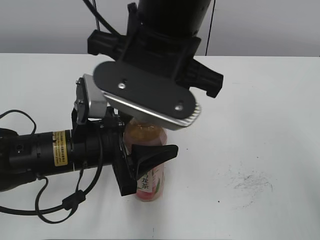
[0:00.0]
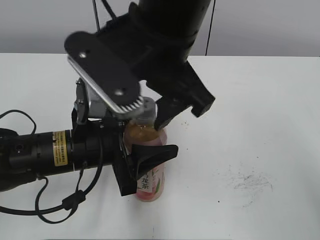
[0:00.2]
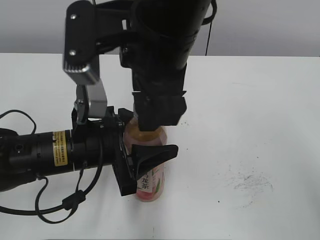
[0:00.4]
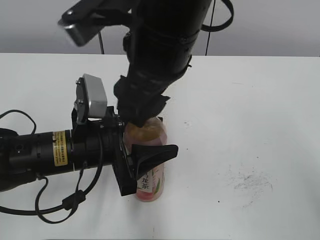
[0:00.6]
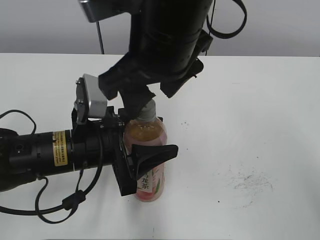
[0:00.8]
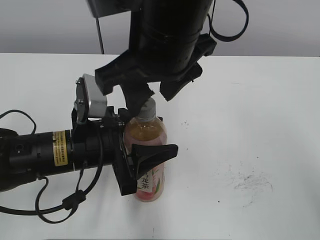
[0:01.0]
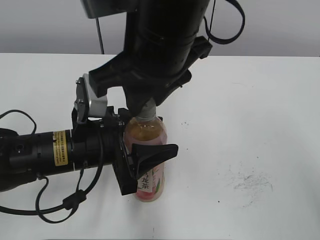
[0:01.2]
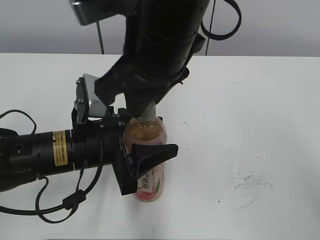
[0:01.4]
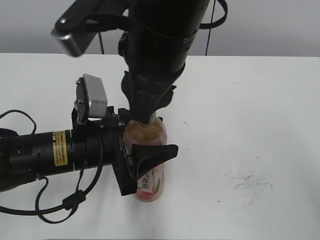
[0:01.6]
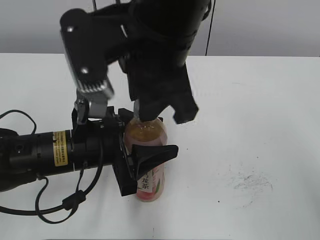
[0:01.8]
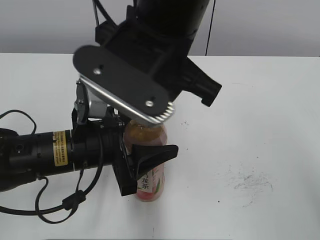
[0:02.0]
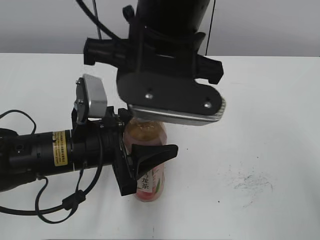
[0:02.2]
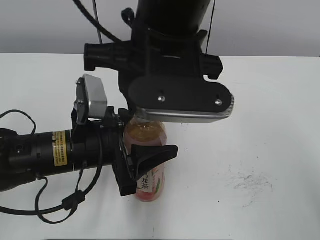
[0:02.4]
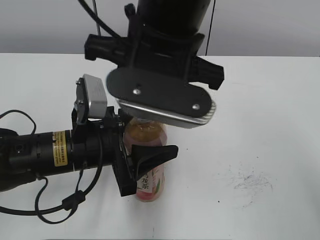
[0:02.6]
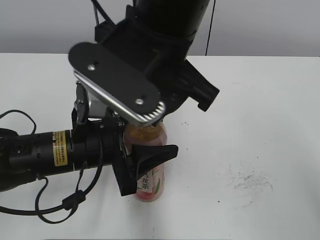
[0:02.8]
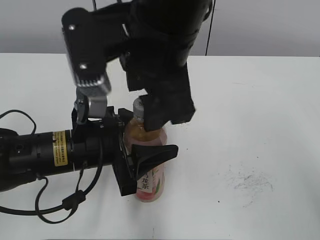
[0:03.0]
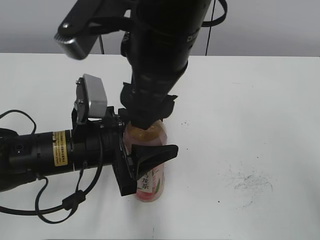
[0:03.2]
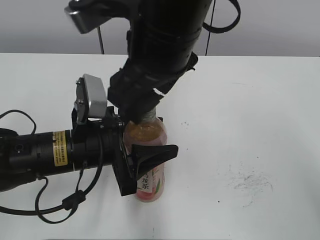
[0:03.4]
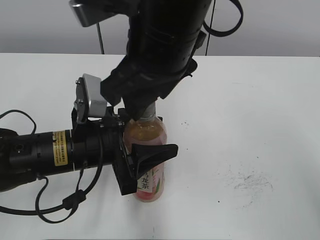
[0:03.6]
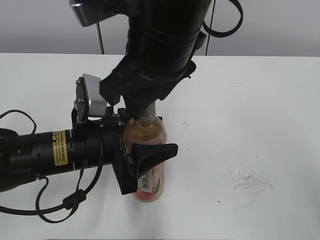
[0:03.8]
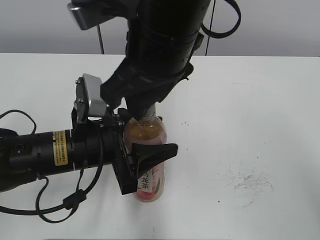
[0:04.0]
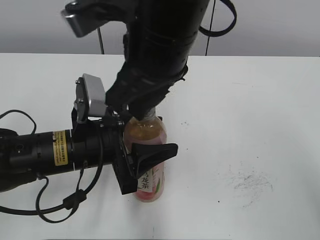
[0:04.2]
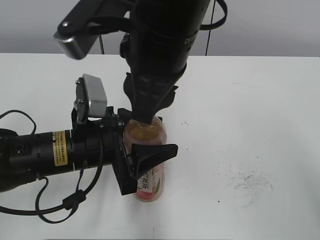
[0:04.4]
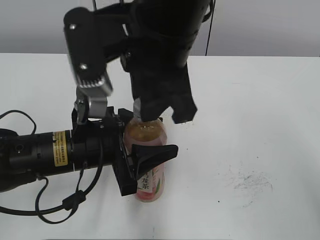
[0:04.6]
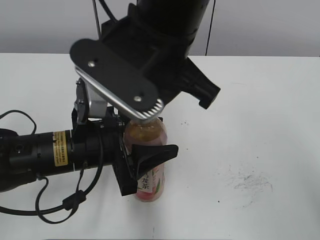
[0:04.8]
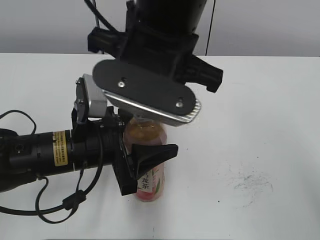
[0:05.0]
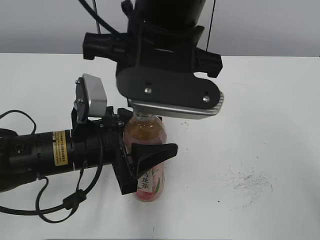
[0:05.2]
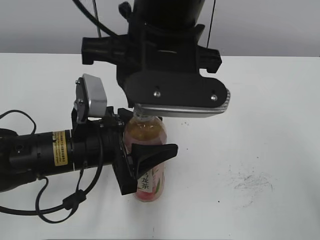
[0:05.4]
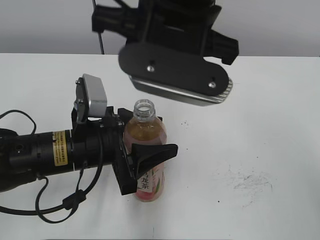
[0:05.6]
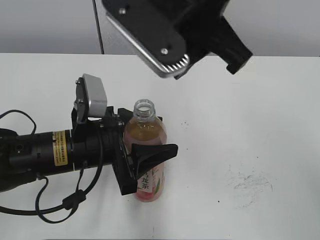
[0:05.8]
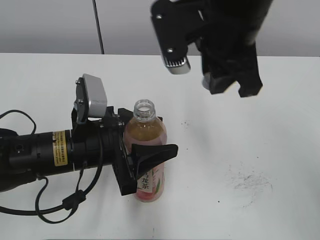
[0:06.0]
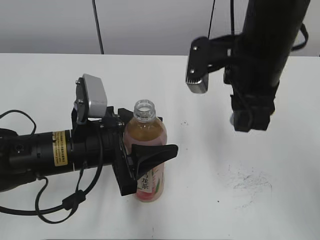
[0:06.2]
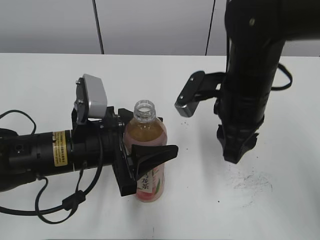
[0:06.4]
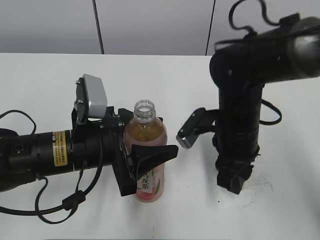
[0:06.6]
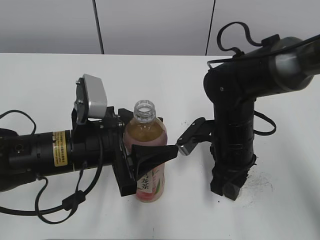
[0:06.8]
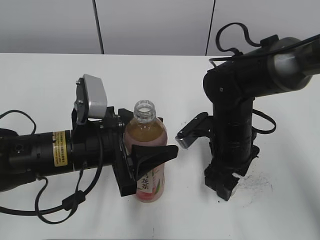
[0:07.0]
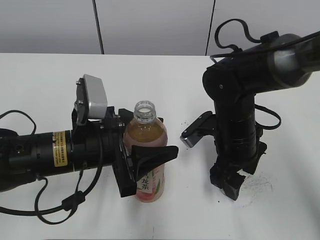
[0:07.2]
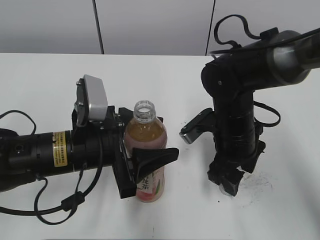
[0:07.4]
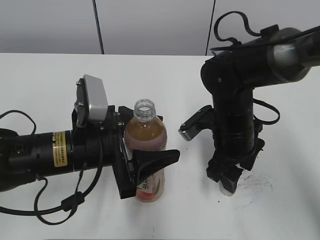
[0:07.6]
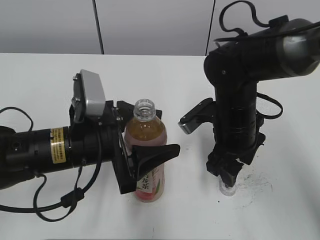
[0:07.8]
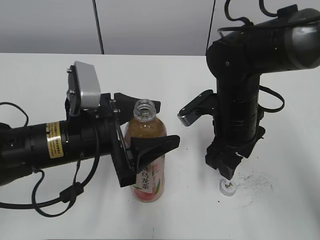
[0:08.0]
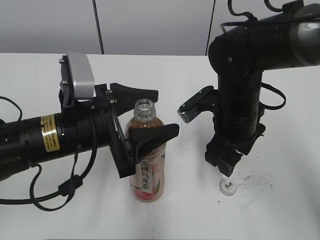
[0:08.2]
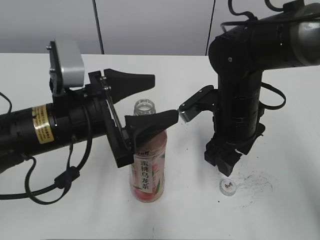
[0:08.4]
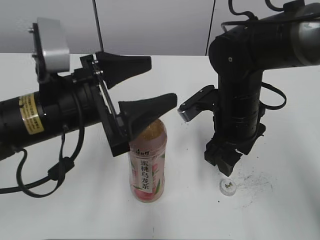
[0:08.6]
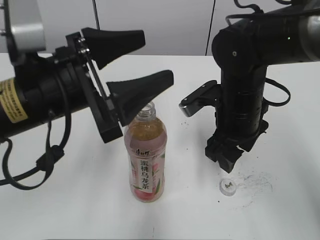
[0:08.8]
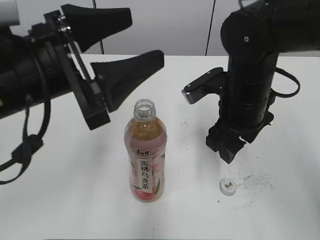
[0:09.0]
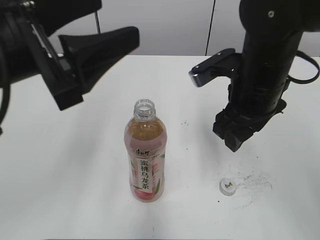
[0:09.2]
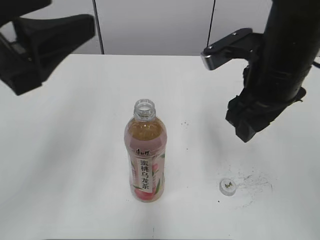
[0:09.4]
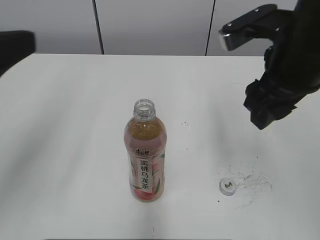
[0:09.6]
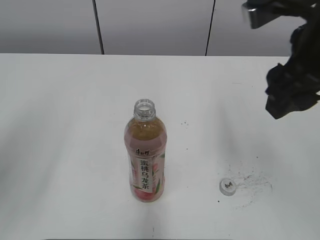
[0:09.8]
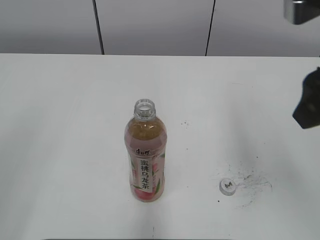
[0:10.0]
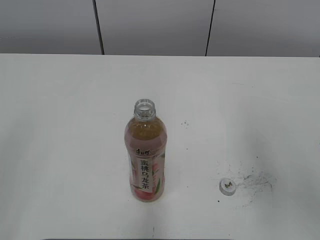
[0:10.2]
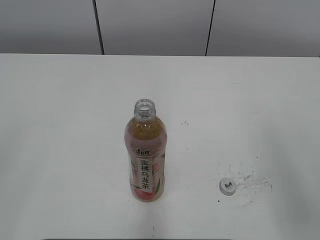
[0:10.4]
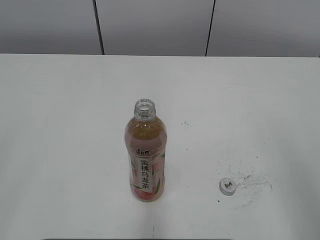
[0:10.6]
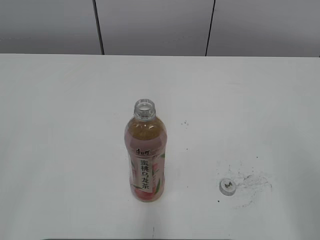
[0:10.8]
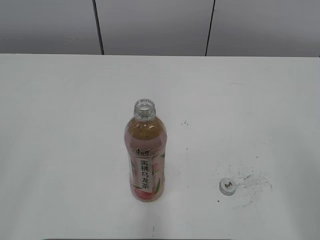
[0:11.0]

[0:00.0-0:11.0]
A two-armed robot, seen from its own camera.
Step, 0:05.6 to 0:06.8: Place the bottle cap on the right.
Step, 0:07.0 to 0:07.8: Place the Peach Oolong Tea with the left hand.
0:00.0 to 0:01.6: The right gripper opens and closes again.
0:01.6 to 0:03.2: The right gripper opens its fingers.
0:03.2 to 0:04.8: The right gripper closes up.
0:04.8 to 0:06.2: The right gripper moves to the right, roughly 10 cm.
0:06.2 to 0:07.8: The left gripper opens up. Meanwhile the right gripper is displaced downward by approximately 15 cm, and opens its fingers.
0:07.8 to 0:09.4: The right gripper heads upward, covering about 10 cm, while the left gripper goes approximately 20 cm upward and to the left.
0:09.4 to 0:11.0: The right gripper moves backward and to the right, roughly 30 cm. Meanwhile the left gripper travels backward and to the left by roughly 25 cm.

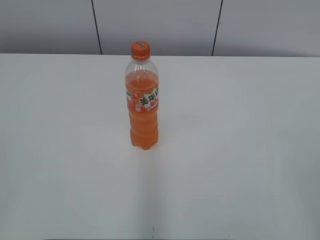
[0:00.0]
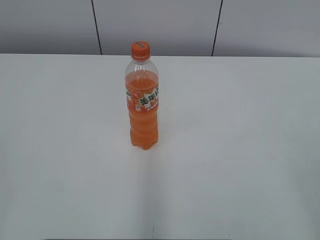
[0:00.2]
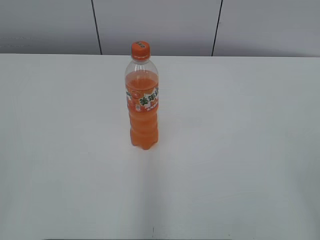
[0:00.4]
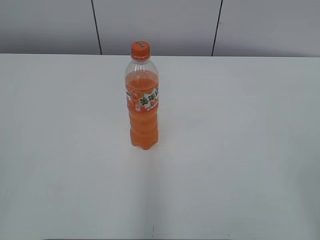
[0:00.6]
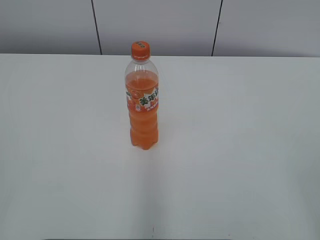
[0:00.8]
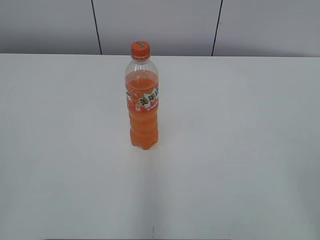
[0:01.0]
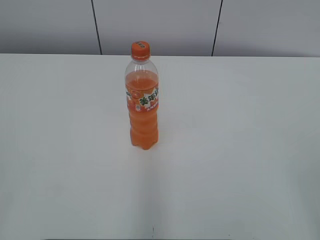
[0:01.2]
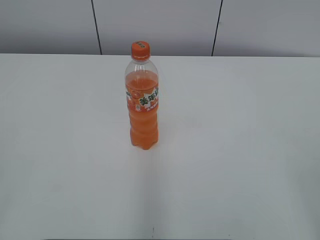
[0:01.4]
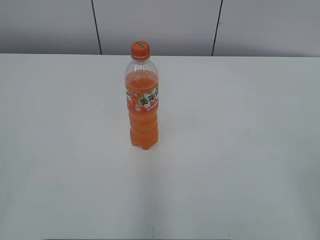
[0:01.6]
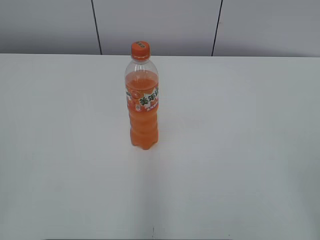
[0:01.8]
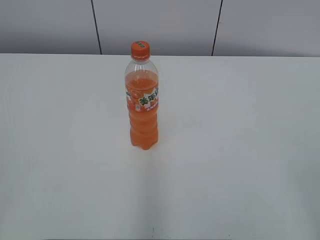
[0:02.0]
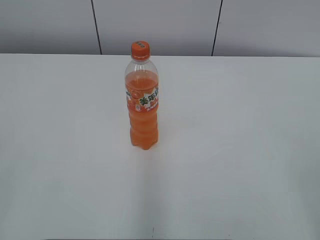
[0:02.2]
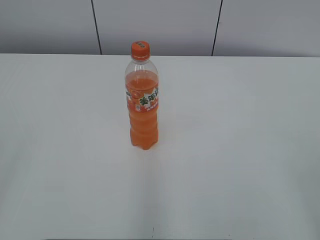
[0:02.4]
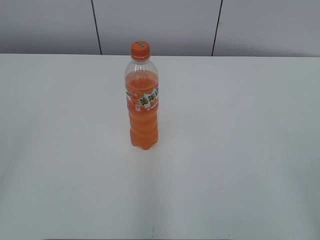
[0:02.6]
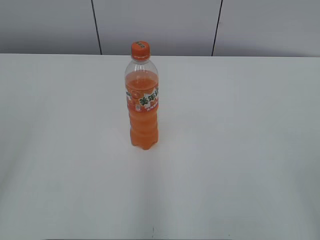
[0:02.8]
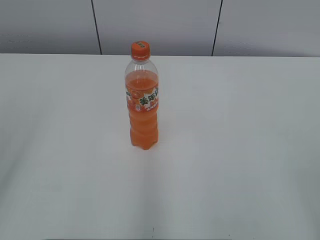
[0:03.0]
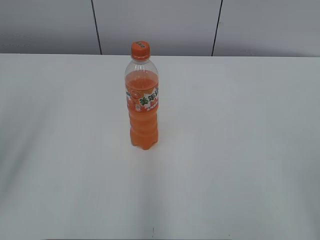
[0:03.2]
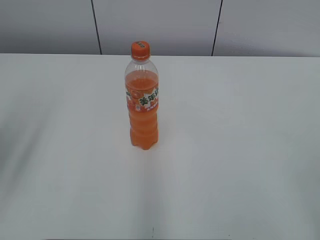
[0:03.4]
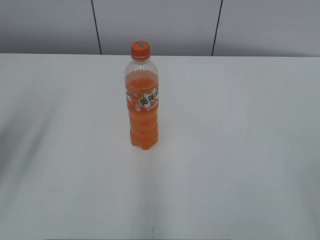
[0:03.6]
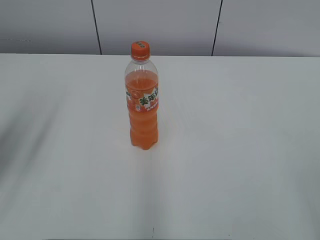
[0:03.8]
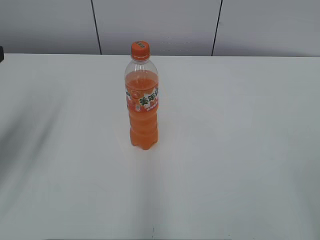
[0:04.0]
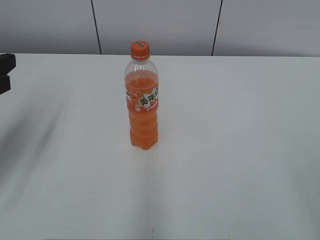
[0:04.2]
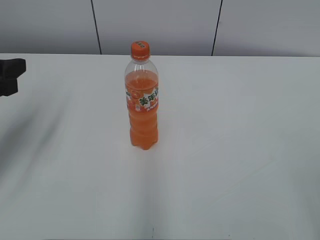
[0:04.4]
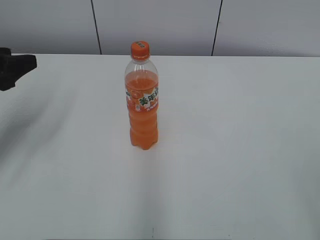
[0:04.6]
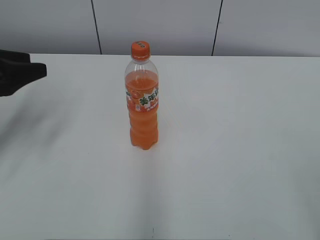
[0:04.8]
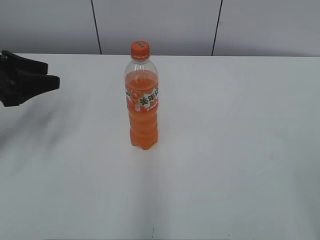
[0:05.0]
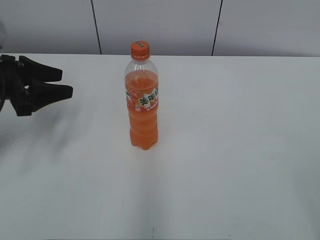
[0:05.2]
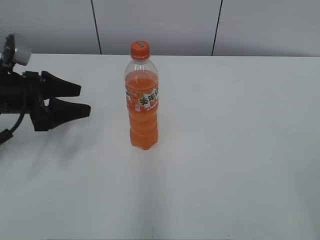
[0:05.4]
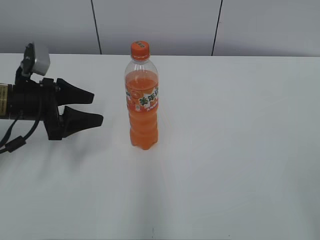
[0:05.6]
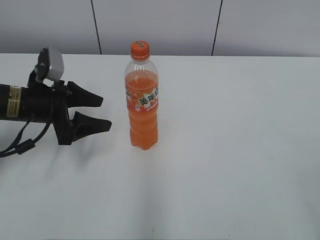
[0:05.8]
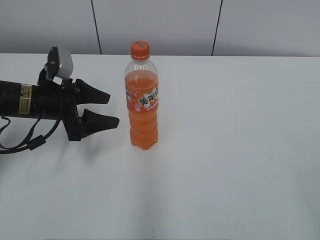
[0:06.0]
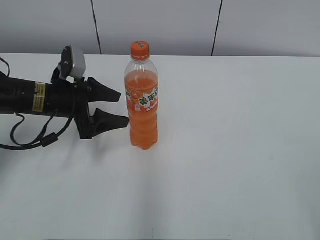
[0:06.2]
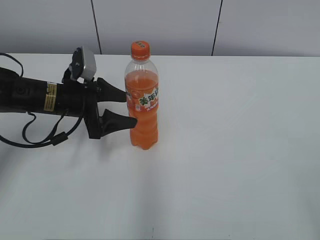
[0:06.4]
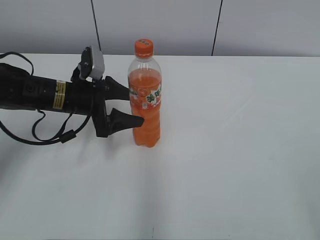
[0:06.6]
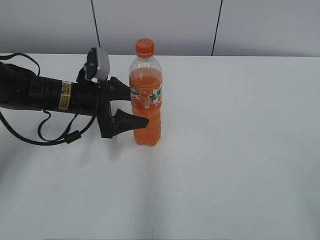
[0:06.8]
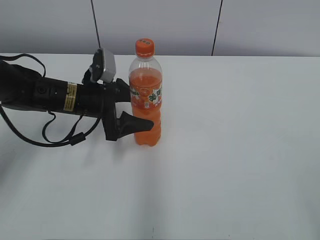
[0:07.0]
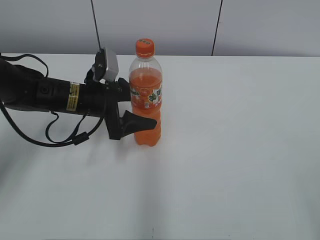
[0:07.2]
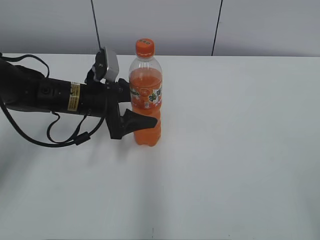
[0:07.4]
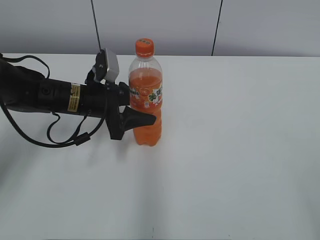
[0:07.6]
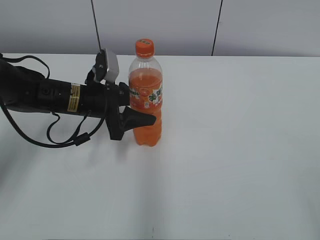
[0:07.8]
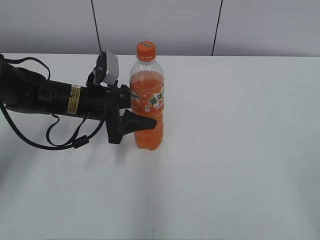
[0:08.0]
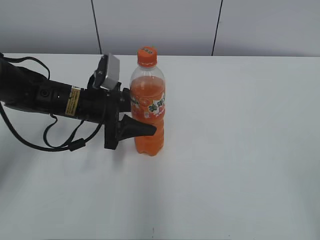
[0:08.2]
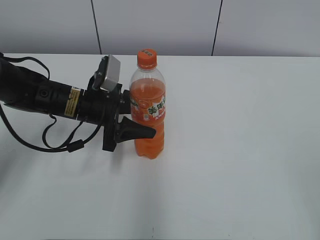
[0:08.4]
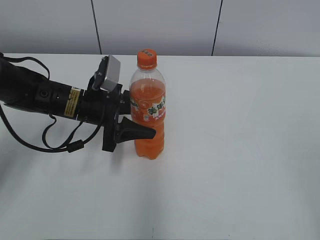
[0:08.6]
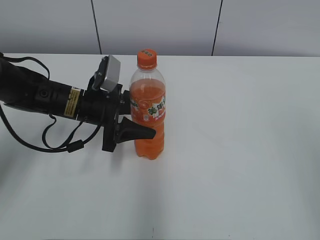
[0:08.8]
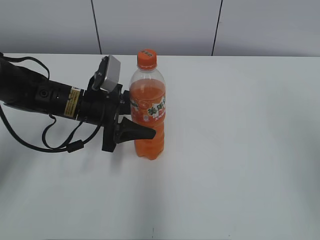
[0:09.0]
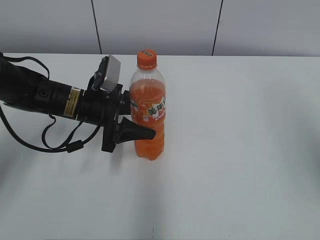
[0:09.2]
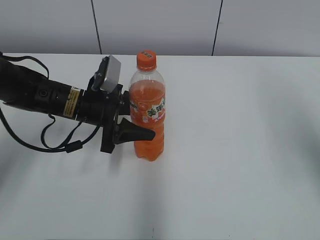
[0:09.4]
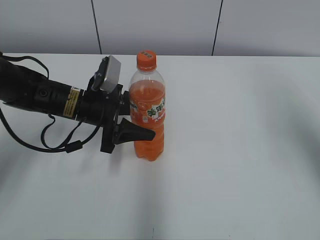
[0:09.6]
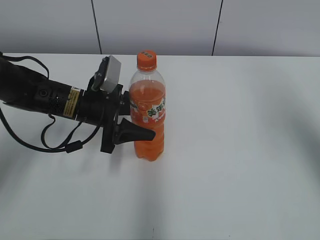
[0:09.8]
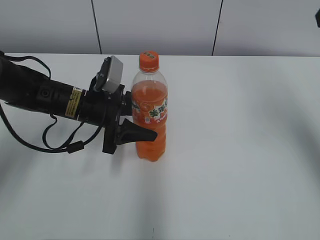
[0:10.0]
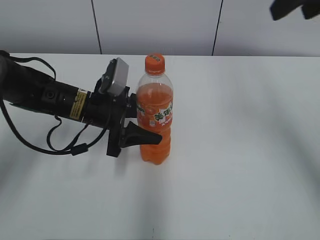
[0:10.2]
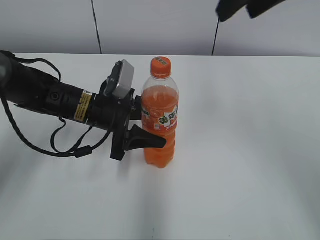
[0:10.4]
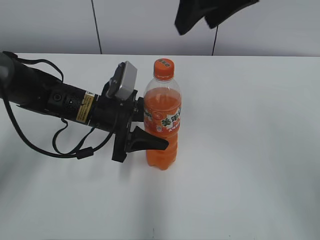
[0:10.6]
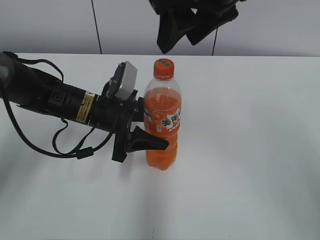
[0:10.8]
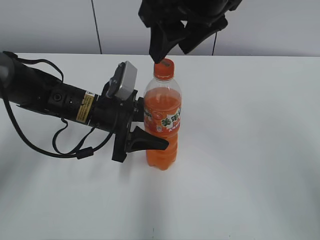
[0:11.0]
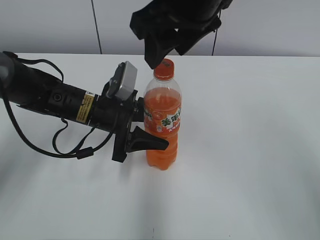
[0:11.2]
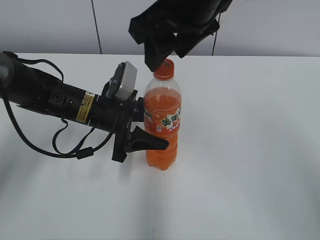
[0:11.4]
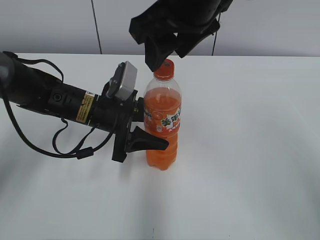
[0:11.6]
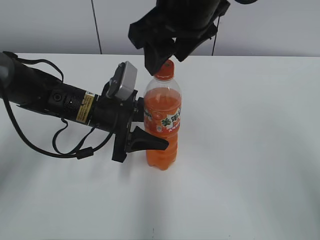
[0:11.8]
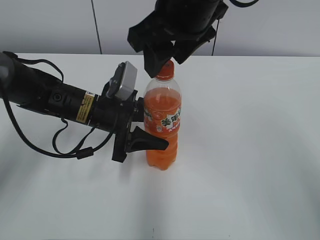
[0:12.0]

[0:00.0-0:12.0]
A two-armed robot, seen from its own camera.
Step, 0:00.0 to 0:07.6: Grab the Mirinda with the left hand.
0:03.0 to 0:04.4: The left gripper heads forward and downward, covering approximately 20 cm.
0:04.4 to 0:06.0: The left gripper moves downward, forward and to the right, about 15 cm.
0:06.0 to 0:07.6: The left gripper shifts approximately 5 cm to the right, and closes up.
0:07.6 to 0:09.0: The right gripper shifts about 15 cm forward and upward.
0:09.0 to 0:10.4: The right gripper travels forward and to the left by some 25 cm.
0:10.4 to 0:12.0: The right gripper is displaced to the left and downward by approximately 10 cm.
